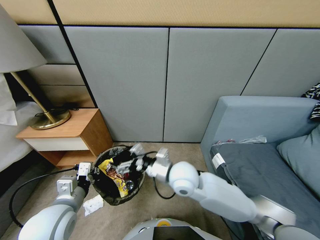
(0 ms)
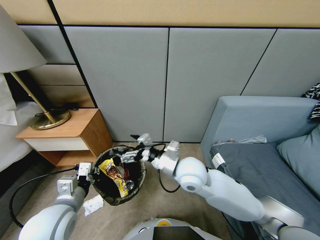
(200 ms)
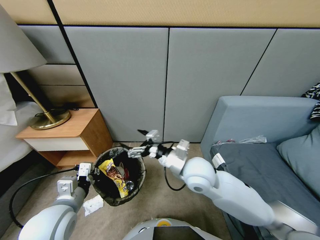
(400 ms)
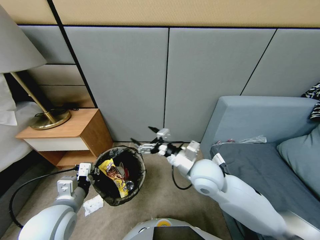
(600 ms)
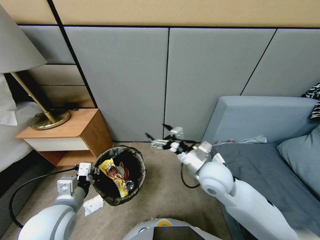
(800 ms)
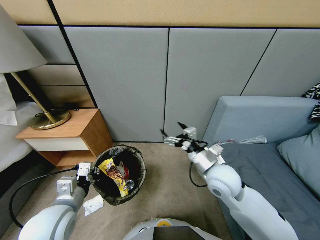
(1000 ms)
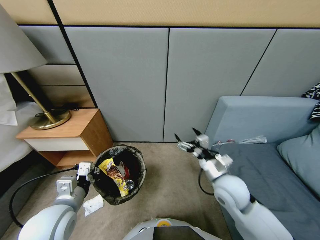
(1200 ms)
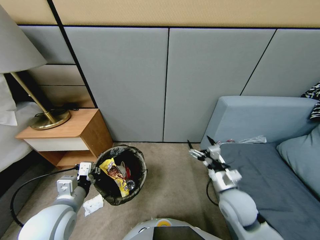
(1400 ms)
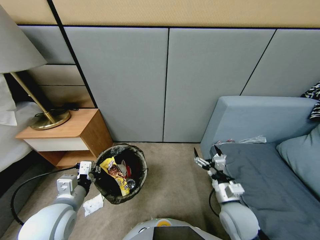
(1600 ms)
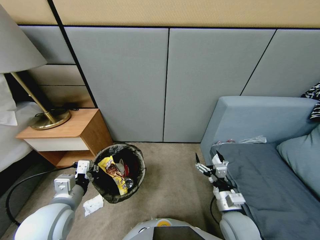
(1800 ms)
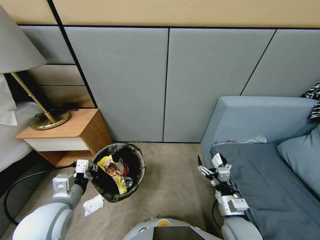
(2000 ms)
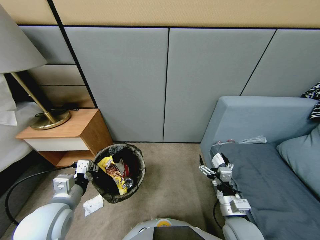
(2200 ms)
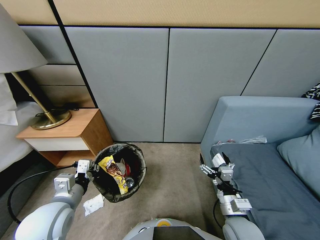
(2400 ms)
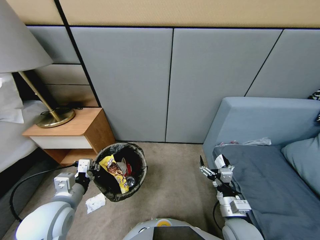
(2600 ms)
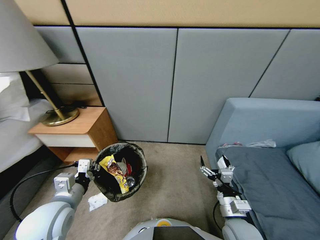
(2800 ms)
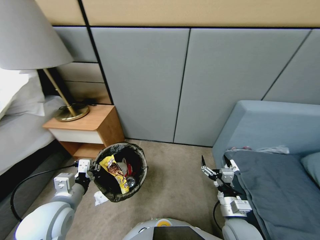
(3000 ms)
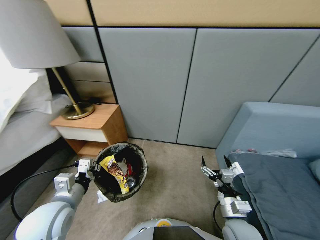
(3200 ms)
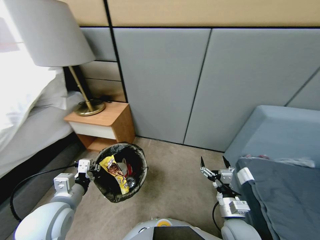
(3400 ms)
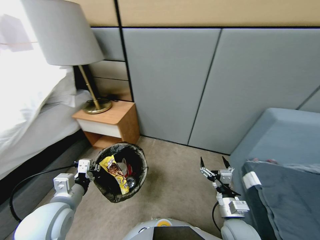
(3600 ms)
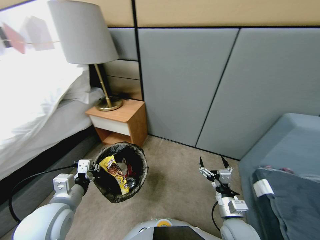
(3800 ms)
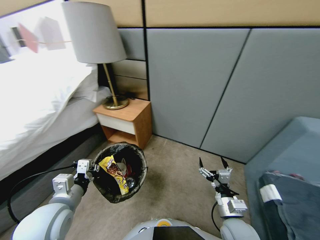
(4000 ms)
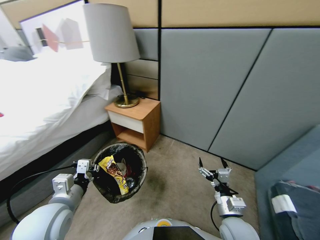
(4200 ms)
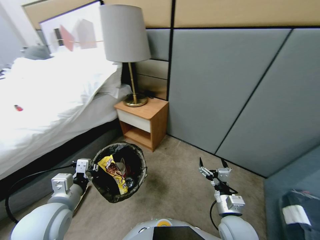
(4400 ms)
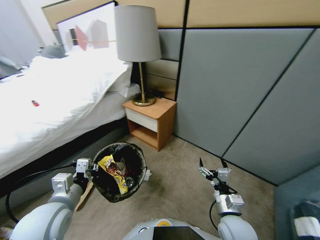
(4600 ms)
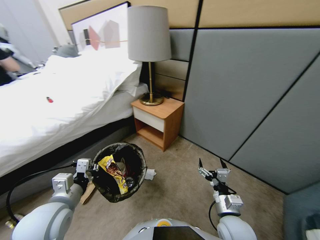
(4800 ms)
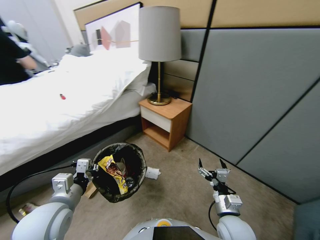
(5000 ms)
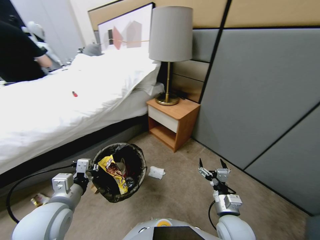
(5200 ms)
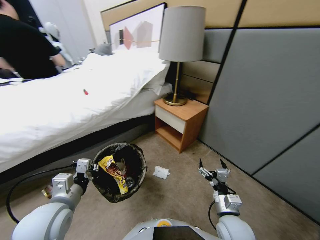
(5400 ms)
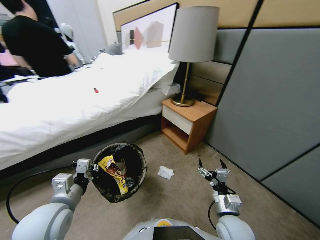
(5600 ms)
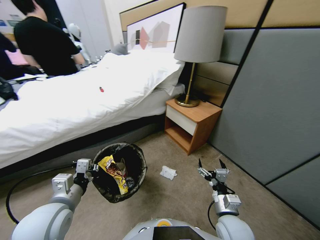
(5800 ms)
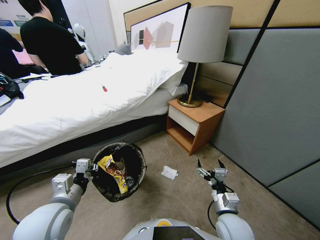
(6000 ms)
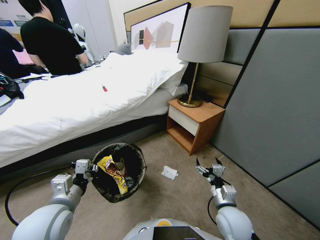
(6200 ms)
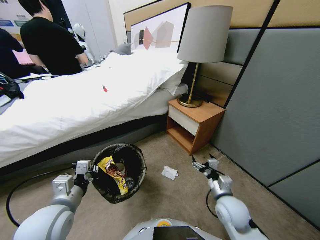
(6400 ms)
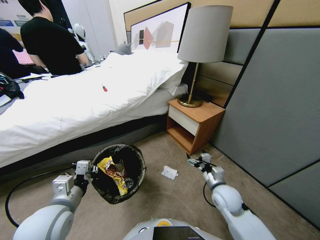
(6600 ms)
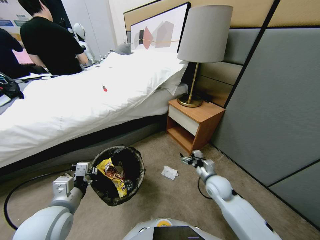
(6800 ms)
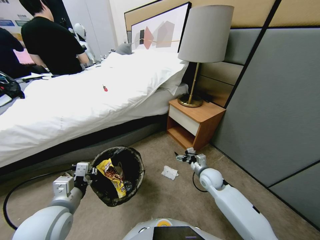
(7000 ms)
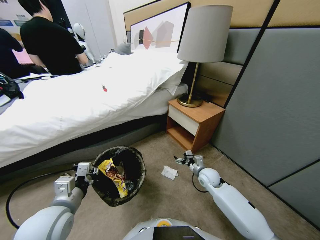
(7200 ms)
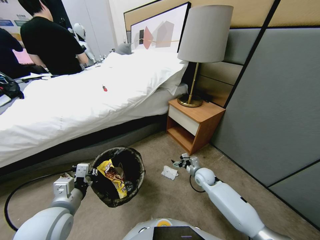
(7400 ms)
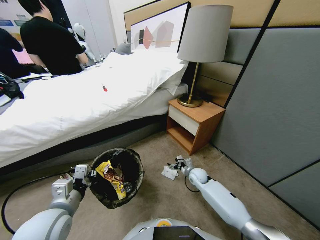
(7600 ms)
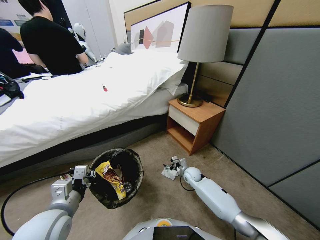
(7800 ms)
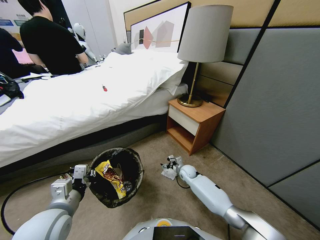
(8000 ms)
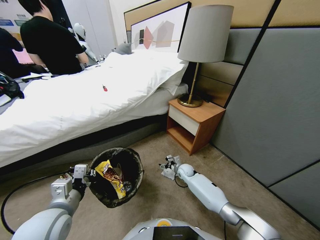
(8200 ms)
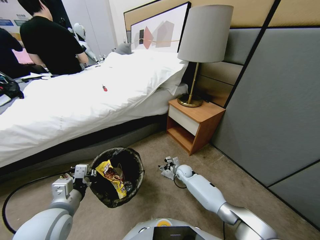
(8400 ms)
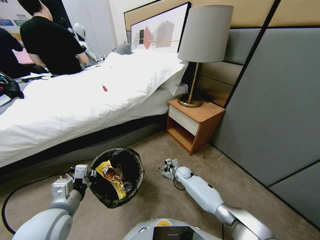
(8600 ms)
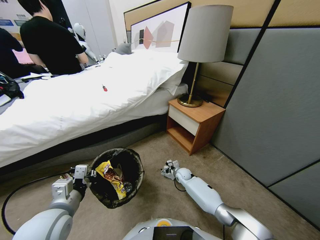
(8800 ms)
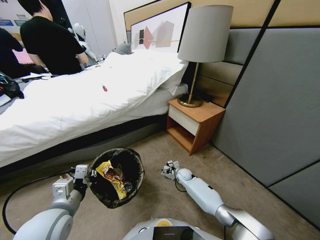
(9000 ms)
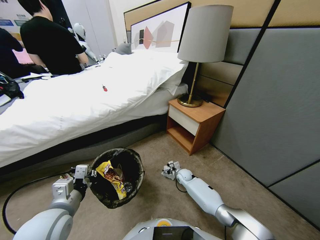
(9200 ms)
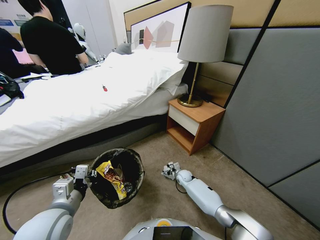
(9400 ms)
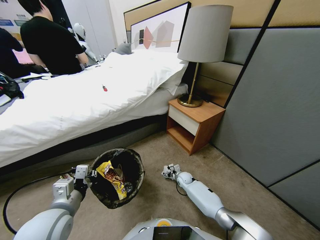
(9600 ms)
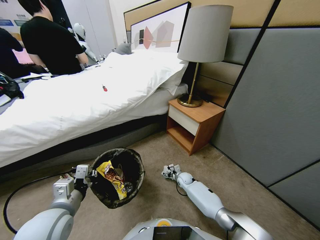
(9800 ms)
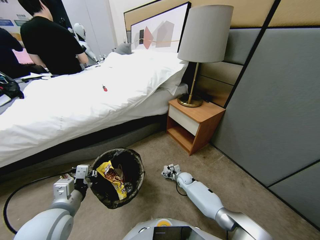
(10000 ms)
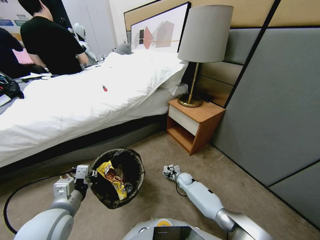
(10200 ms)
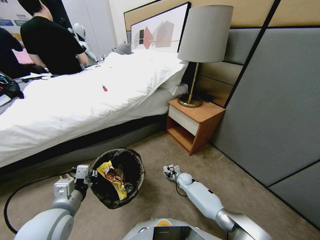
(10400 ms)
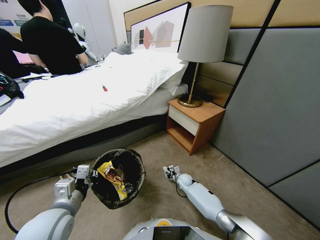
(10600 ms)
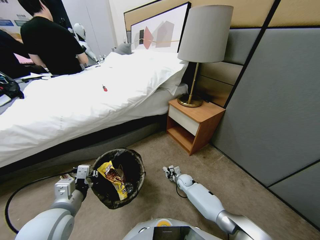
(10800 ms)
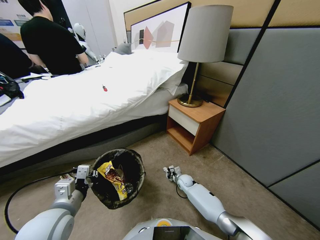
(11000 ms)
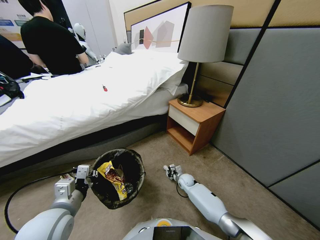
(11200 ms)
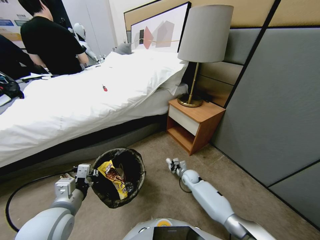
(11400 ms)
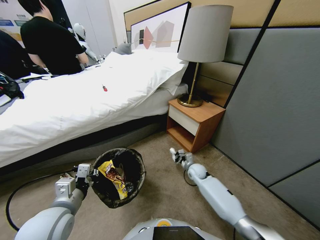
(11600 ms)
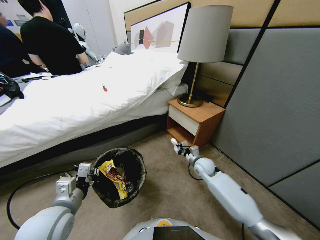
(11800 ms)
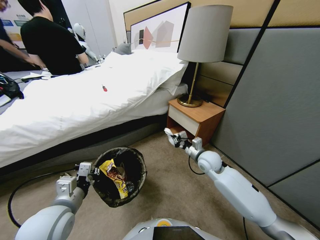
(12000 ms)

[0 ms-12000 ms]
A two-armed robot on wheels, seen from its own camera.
Task of the whole recording: Pick up the trash bin, then pick up the garbage from the floor and place it into the trash bin.
0 ms to 1600 ms: The right gripper travels to the right, downward and backward by roughly 25 cm.
6000 ms to 7600 ms: The right gripper travels forward and downward by approximately 30 cm.
7600 ms to 9000 ms: The right gripper goes approximately 5 cm downward.
9000 ms to 10400 ms: The right gripper closes.
10400 ms to 12000 ms: The right gripper heads upward, covering some 30 cm, and closes its fingers.

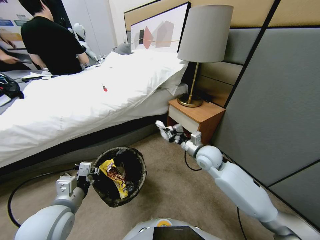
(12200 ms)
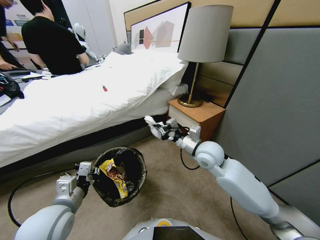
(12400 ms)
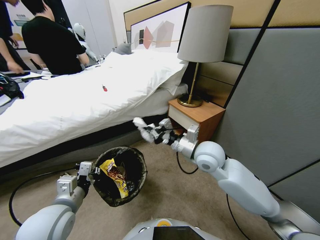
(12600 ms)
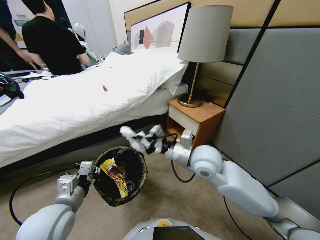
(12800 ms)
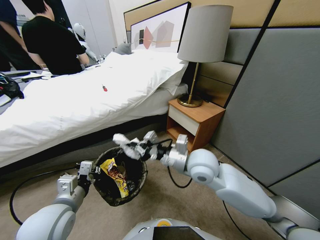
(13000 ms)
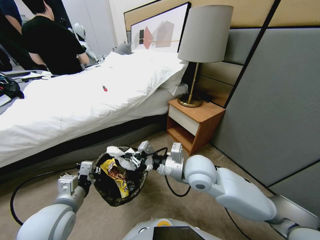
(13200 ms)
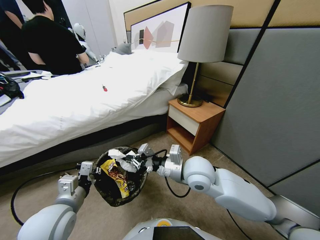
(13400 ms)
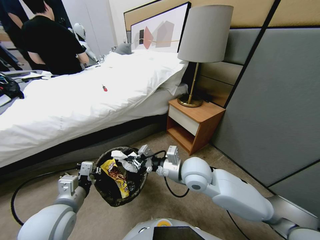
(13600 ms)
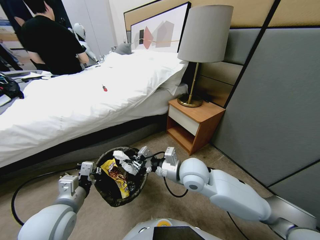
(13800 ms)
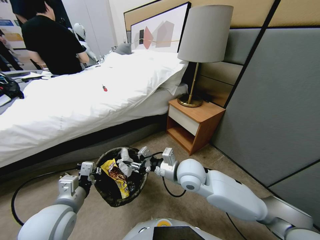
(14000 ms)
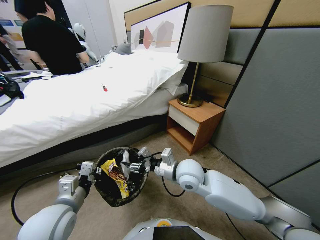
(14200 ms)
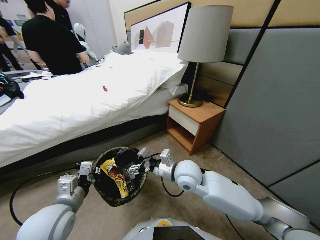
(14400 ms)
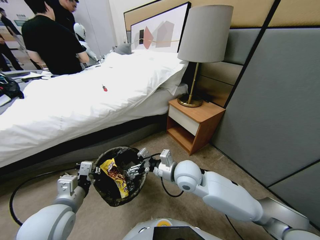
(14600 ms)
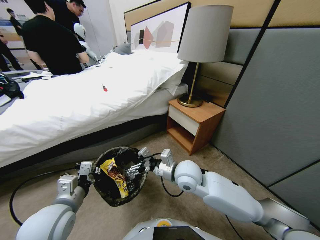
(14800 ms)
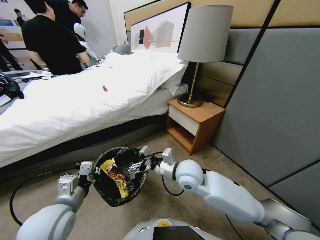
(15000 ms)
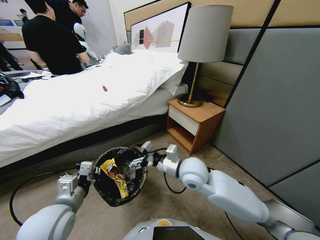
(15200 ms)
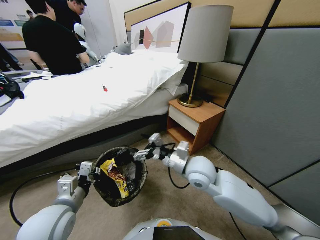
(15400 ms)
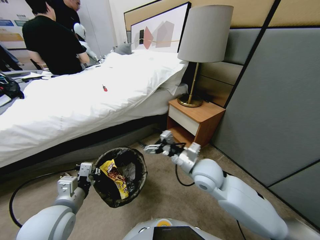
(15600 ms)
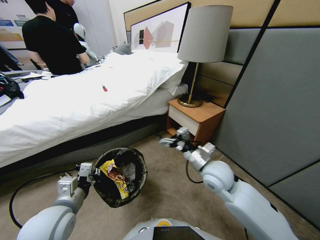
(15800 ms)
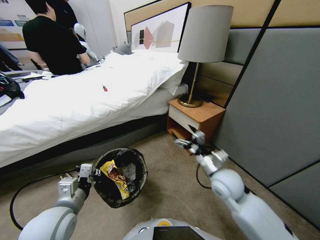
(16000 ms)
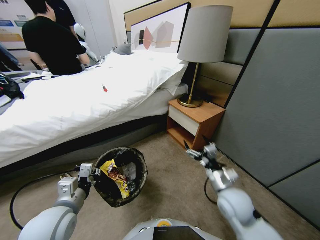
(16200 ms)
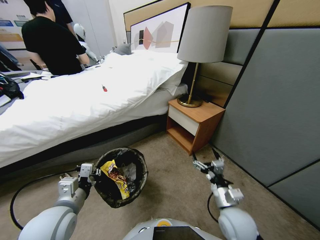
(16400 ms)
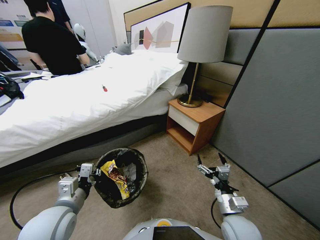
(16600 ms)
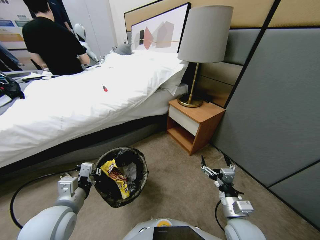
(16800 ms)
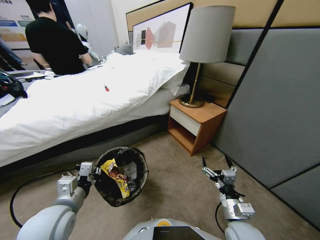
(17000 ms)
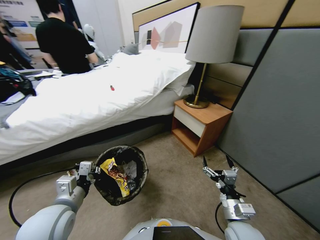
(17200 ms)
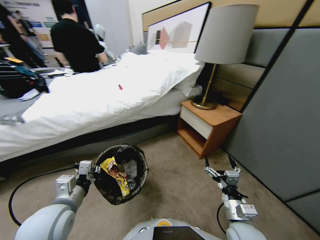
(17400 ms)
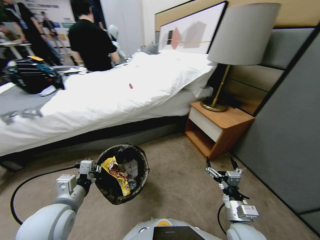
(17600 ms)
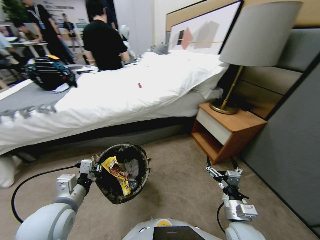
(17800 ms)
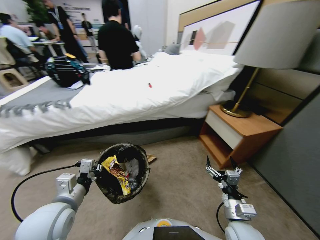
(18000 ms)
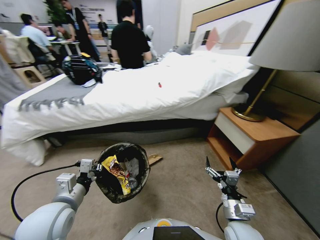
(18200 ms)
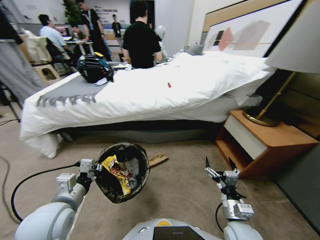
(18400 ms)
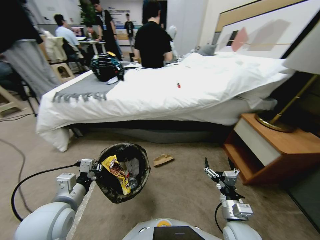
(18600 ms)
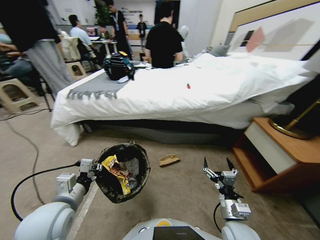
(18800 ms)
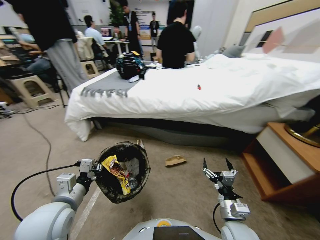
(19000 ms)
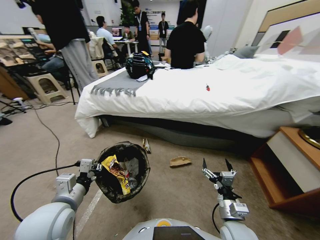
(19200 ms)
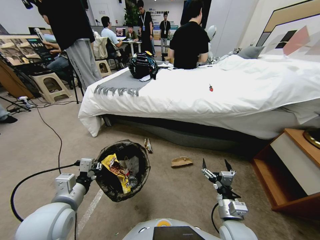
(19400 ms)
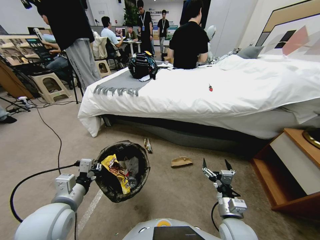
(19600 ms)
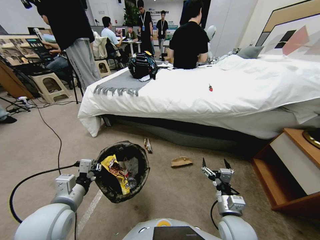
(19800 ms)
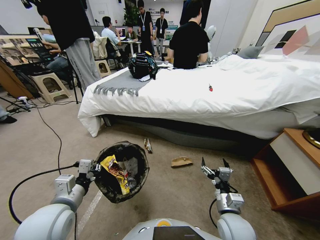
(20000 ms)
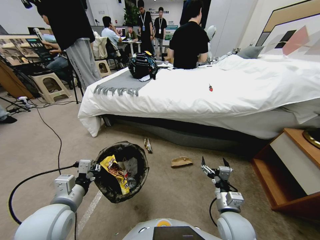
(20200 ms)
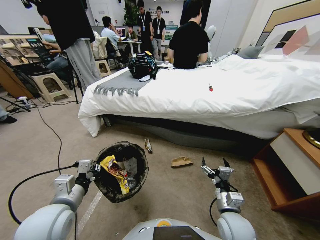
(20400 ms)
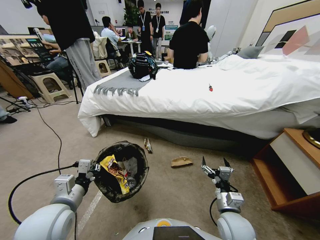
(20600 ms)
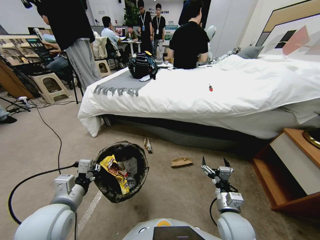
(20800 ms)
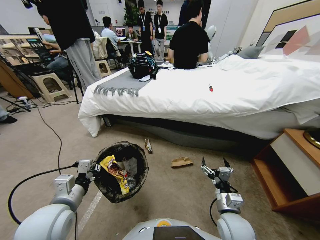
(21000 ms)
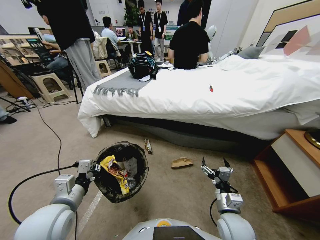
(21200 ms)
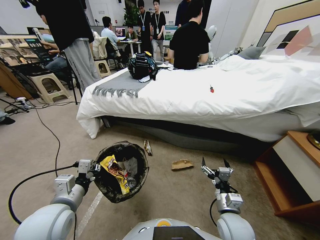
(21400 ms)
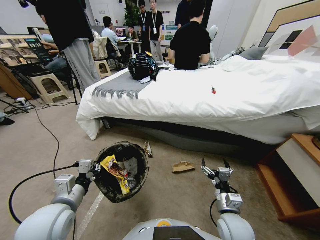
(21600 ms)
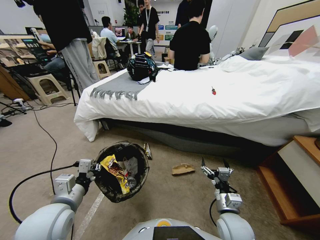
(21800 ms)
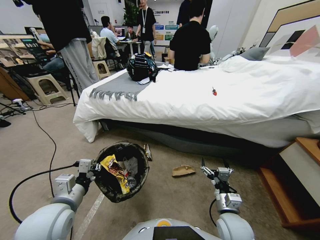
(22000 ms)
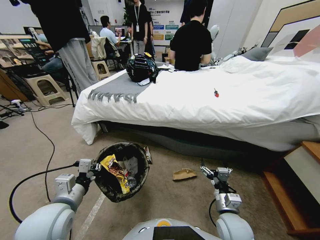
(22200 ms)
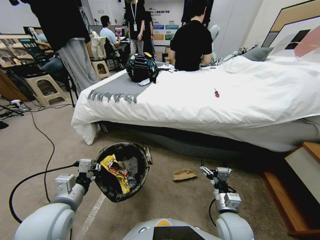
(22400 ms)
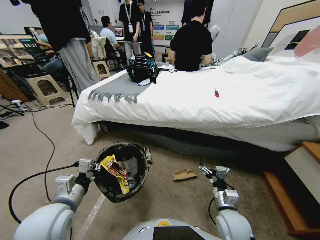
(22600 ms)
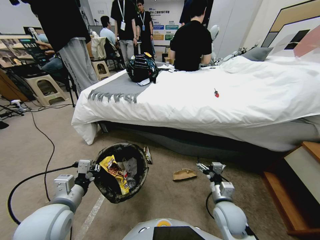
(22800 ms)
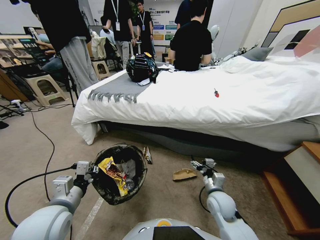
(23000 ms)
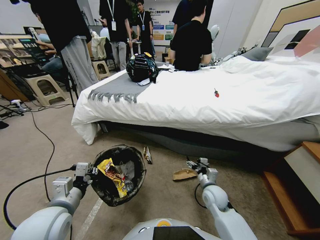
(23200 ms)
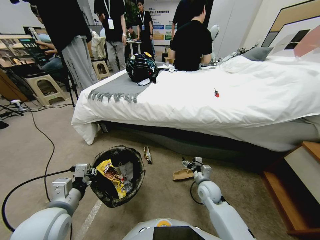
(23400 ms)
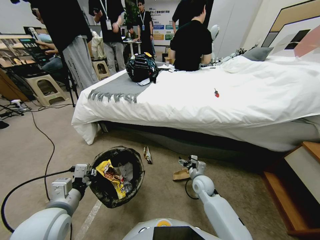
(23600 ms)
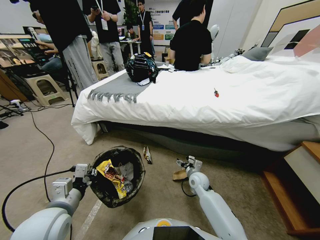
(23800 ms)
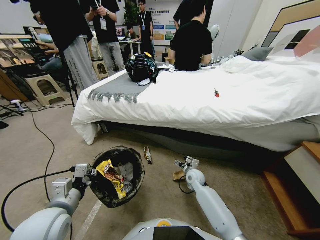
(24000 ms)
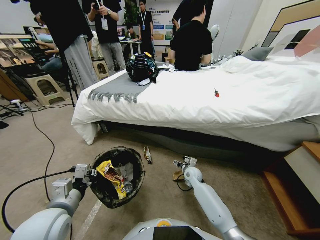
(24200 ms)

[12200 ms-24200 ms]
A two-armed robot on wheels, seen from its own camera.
Task of the whole recording: Pick up the trash bin, then pick up the garbage from the floor and place it into the trash bin.
12200 ms to 13800 ms: The right gripper heads to the left and backward, covering some 10 cm.
13800 ms to 15200 ms: The right gripper opens its fingers.
15200 ms to 16600 ms: The right gripper heads backward, to the right and downward, covering some 25 cm.
19800 ms to 21200 ms: Neither gripper changes place.
22600 ms to 24200 ms: The right gripper moves forward and downward, roughly 25 cm.
